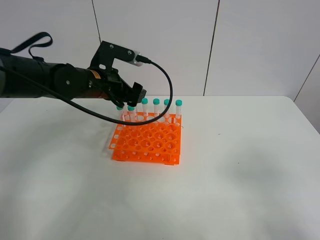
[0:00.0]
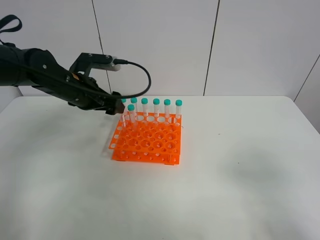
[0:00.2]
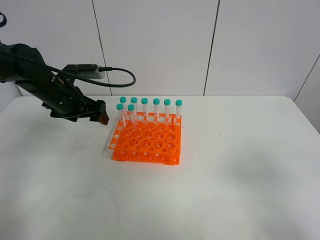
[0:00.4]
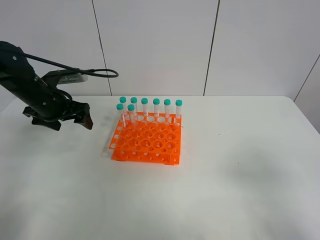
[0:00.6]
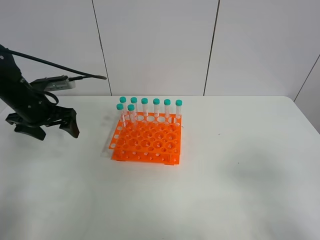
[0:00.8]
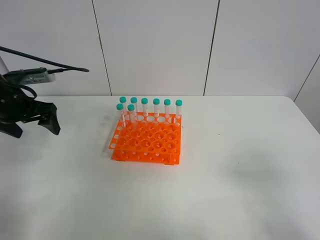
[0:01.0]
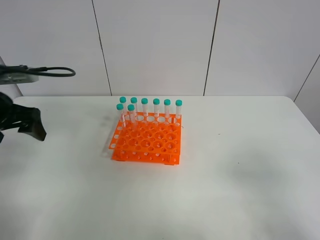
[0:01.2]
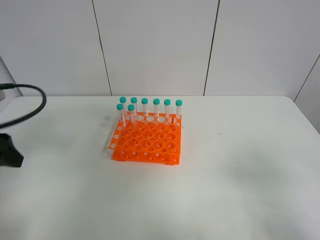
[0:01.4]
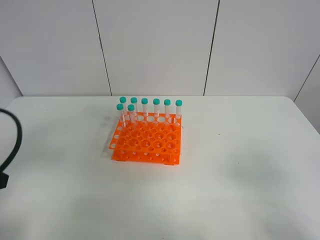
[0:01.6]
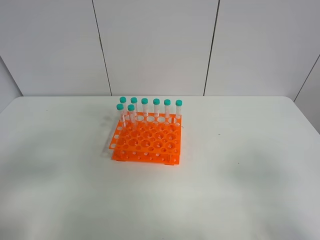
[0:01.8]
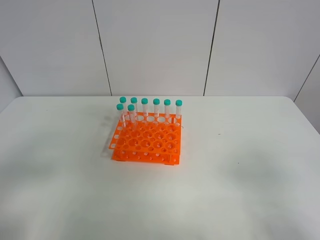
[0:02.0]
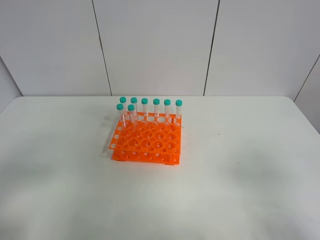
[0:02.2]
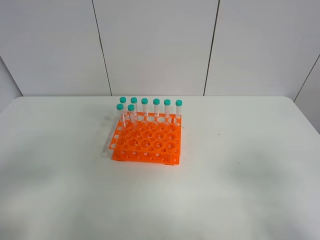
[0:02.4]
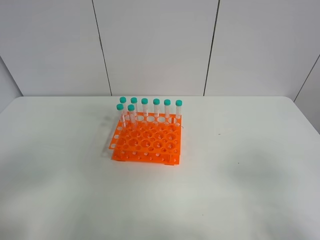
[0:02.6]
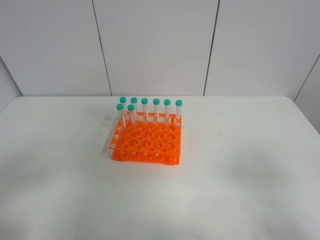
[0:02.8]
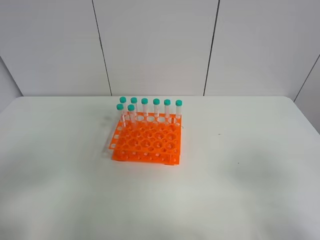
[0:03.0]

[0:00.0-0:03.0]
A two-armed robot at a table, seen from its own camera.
Task of the whole recording: Put the test tube on the table back onto the test tube rack.
0:00.0 to 0:01.6: The left gripper moves backward and to the left, about 30 cm.
0:01.6 to 0:03.0: The left gripper goes about 10 cm backward.

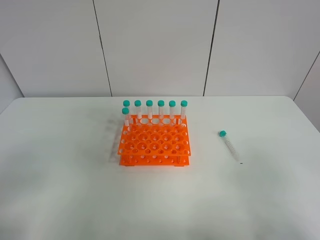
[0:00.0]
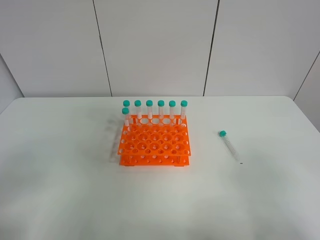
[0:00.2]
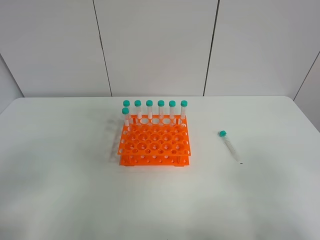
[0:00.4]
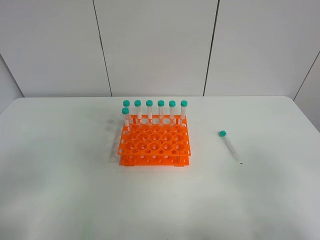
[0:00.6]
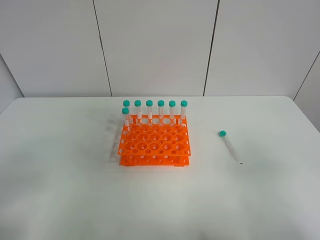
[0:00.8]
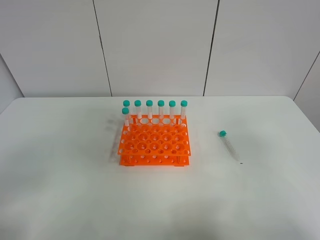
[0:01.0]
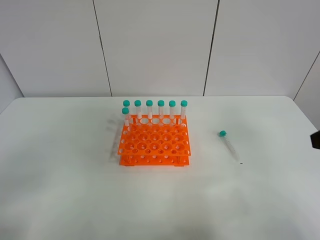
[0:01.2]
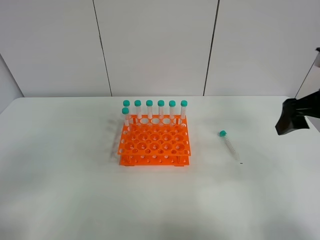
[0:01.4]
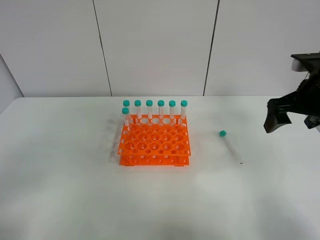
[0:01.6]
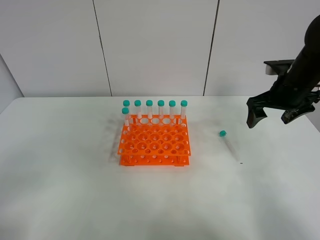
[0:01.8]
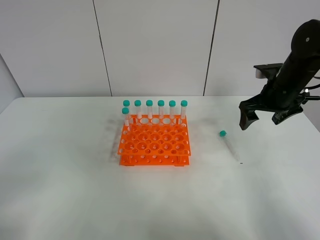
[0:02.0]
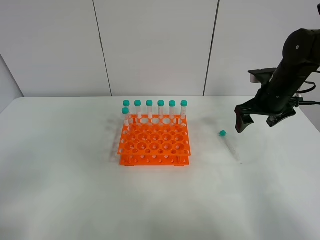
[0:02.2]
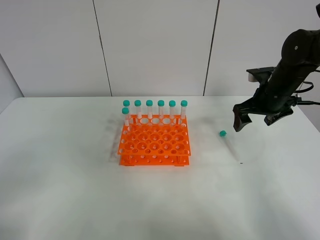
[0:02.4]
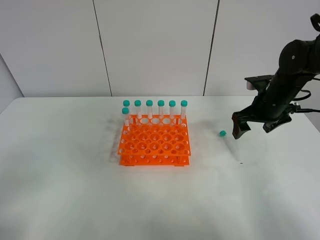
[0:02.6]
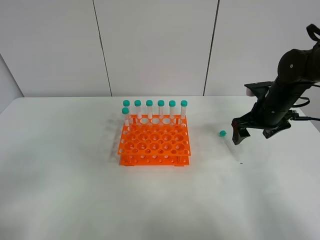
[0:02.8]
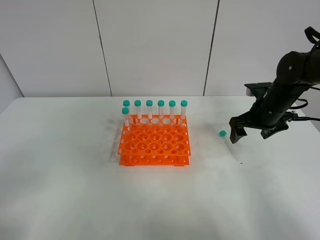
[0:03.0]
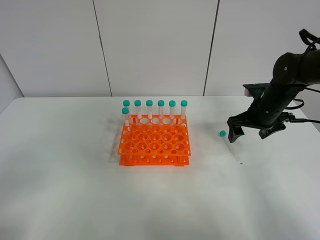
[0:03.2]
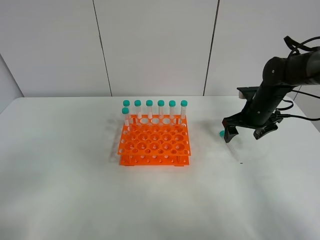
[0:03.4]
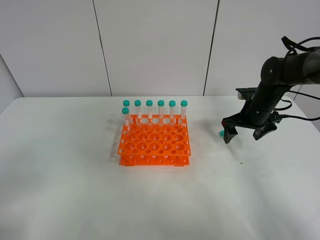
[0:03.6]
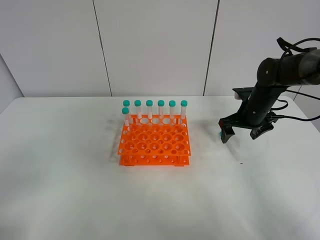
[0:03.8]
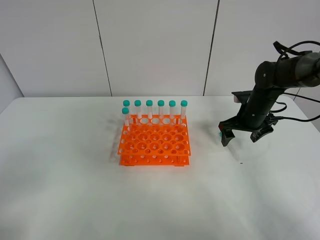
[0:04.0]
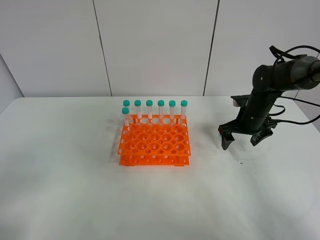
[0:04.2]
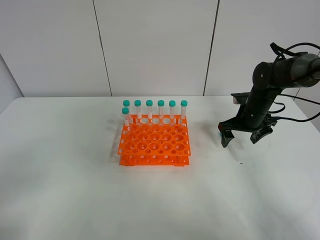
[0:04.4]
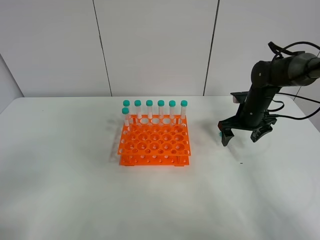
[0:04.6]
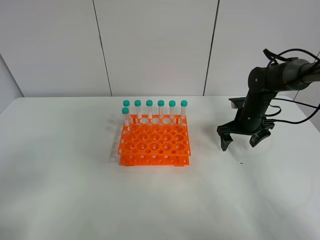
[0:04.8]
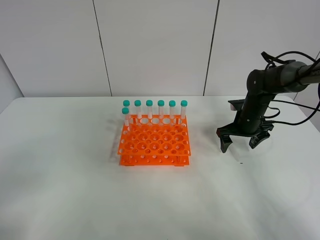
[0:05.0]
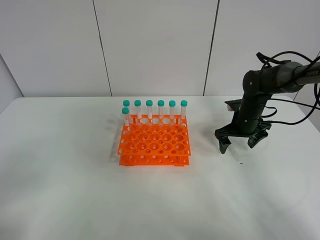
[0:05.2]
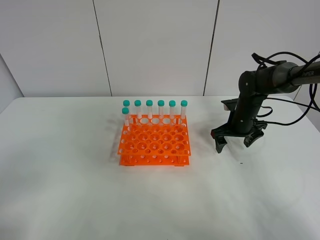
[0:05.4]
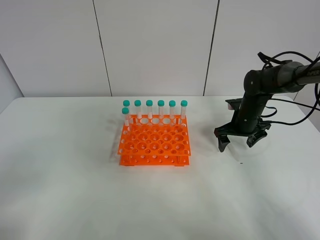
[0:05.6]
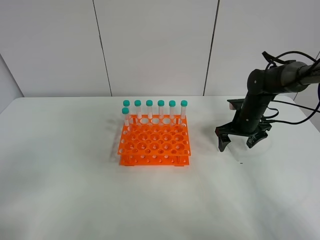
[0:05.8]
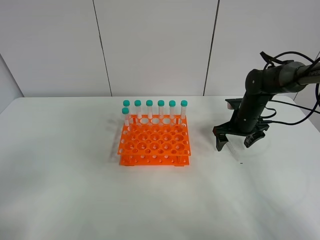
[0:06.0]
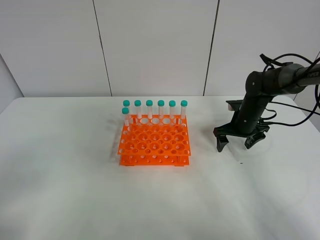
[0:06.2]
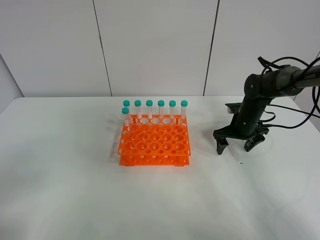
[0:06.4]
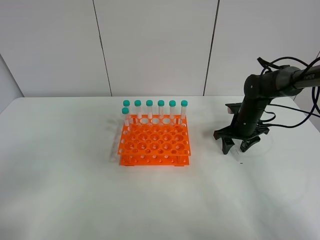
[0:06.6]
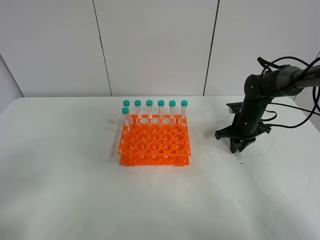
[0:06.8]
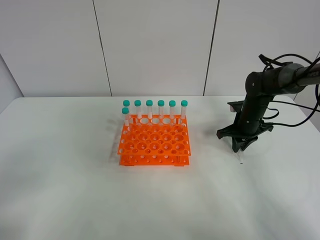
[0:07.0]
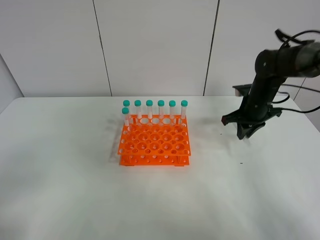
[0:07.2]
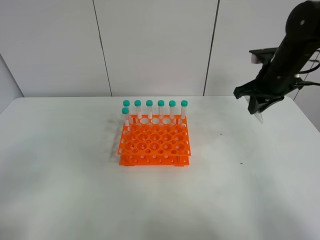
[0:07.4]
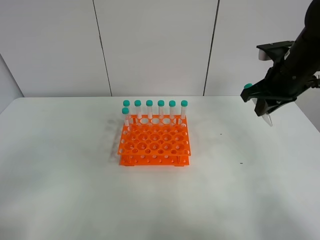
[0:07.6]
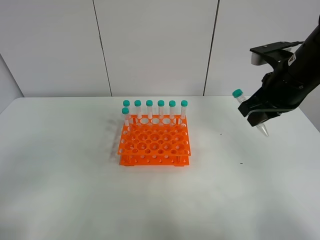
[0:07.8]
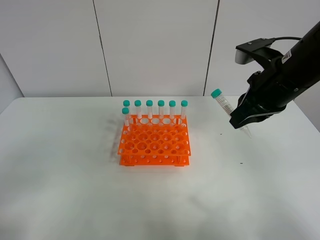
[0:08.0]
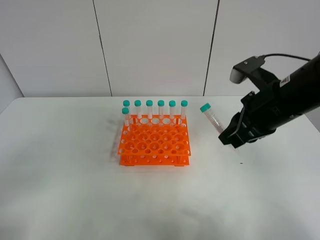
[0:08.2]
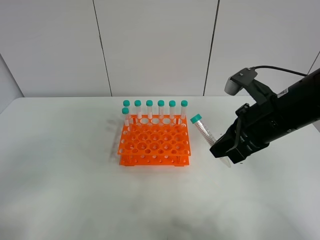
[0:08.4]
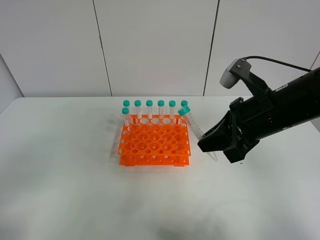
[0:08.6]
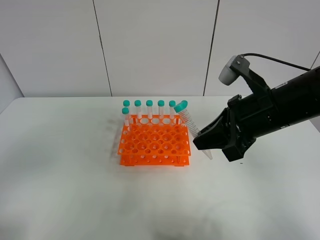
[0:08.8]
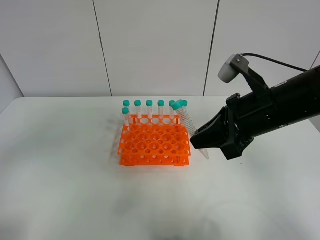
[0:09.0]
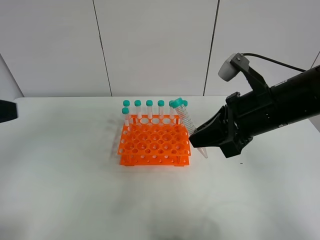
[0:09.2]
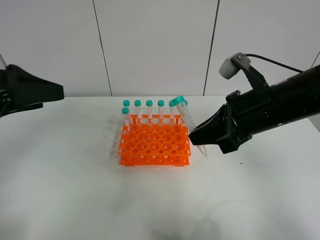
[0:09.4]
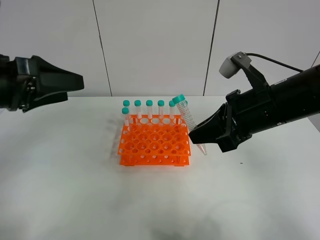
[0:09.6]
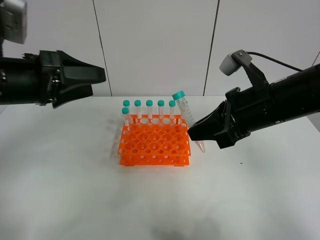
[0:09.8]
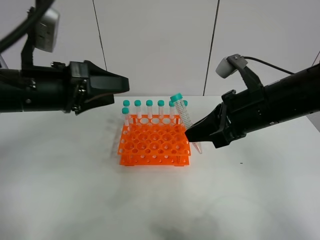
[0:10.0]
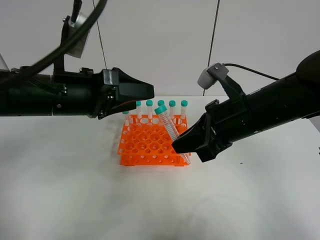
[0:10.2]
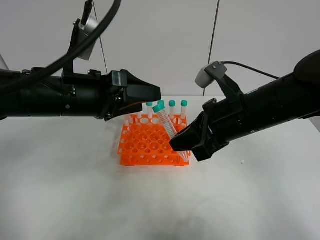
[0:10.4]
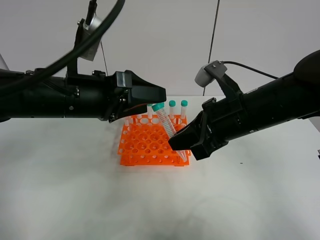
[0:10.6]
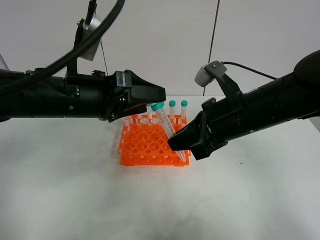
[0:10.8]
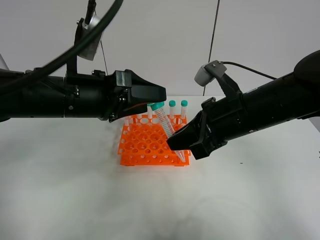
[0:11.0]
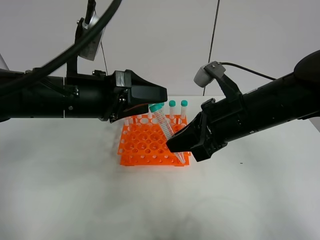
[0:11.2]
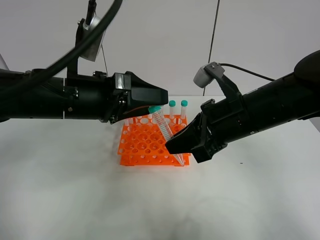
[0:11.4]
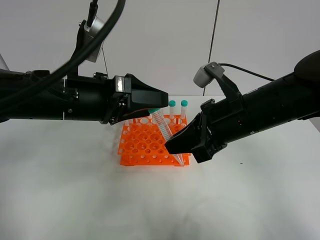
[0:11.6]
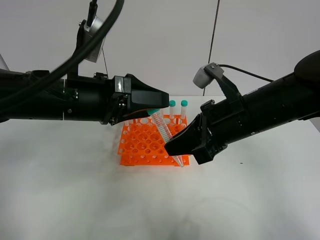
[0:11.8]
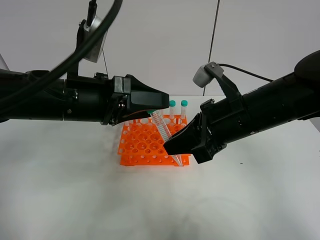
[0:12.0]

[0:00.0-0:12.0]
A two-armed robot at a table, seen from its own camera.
Task of the whole recording: Put the test tube on the table back onto the test tube rack.
Step, 0:00.0 to 0:07.0: Pick up the test tube with the right gripper.
0:00.0 to 0:01.6: The right gripper moves forward, some 30 cm.
0:01.6 to 0:03.0: The right gripper heads downward and forward, covering about 10 cm.
0:03.0 to 0:04.4: The right gripper changes place by roughly 5 cm.
0:04.4 to 0:06.0: The grippers move only a little.
0:06.0 to 0:07.6: The right gripper moves upward and backward, approximately 20 cm, and closes its fingers.
0:07.6 to 0:09.0: The left gripper is displaced upward and forward by roughly 10 cm; the right gripper travels backward and to the left by some 10 cm.
0:09.0 to 0:10.4: The left gripper heads forward, to the right and downward, covering about 25 cm.
0:10.4 to 0:12.0: The grippers stay close to where they were, moving slightly.

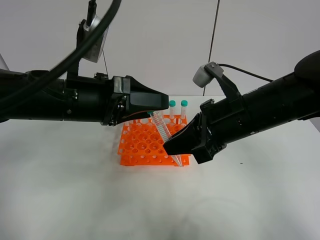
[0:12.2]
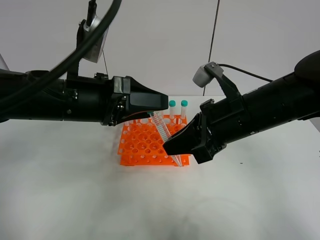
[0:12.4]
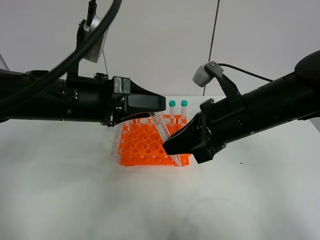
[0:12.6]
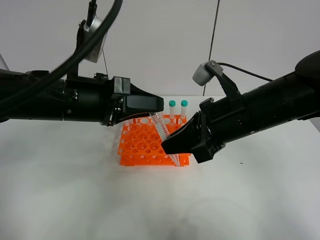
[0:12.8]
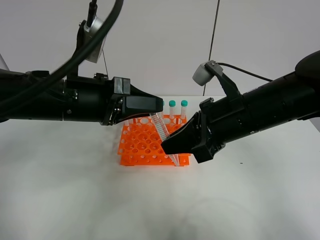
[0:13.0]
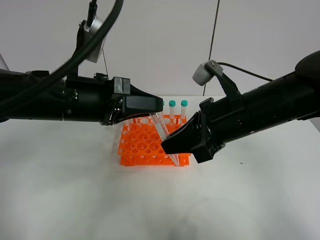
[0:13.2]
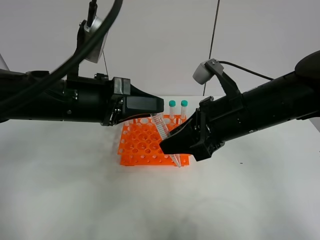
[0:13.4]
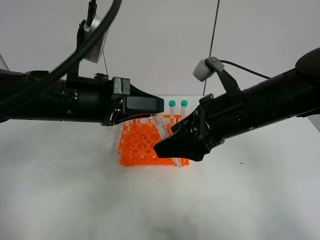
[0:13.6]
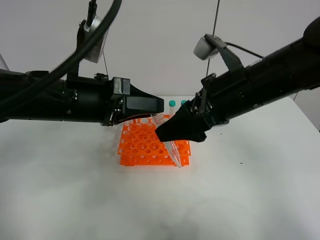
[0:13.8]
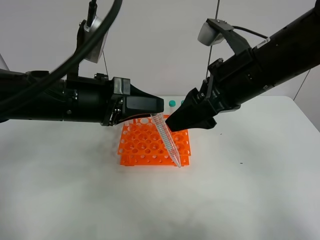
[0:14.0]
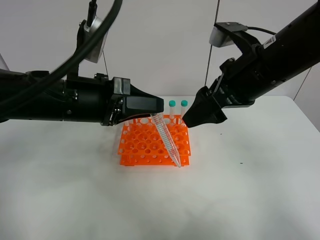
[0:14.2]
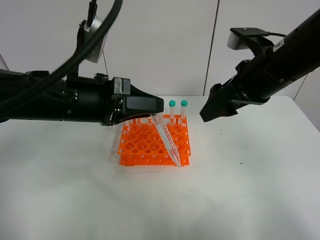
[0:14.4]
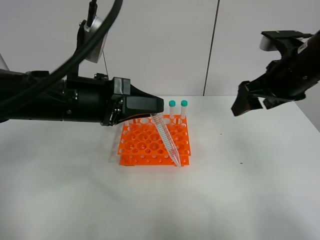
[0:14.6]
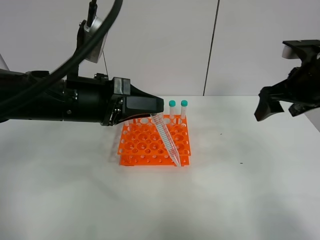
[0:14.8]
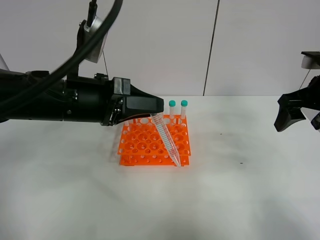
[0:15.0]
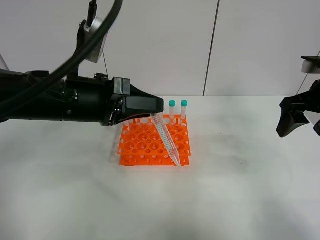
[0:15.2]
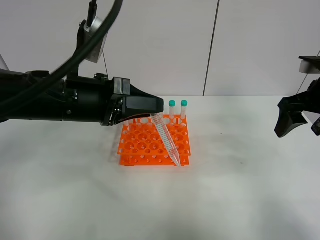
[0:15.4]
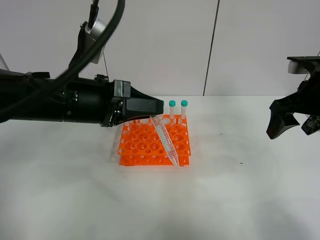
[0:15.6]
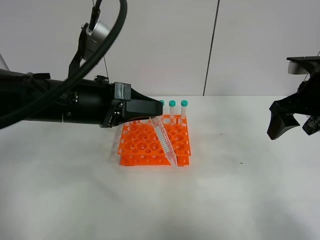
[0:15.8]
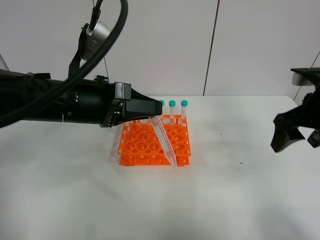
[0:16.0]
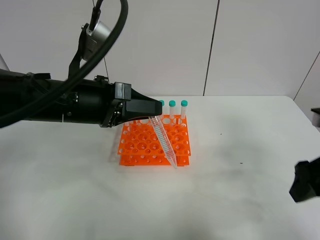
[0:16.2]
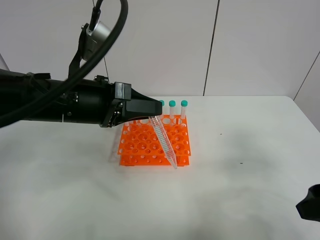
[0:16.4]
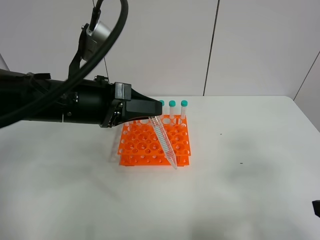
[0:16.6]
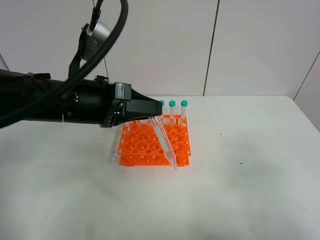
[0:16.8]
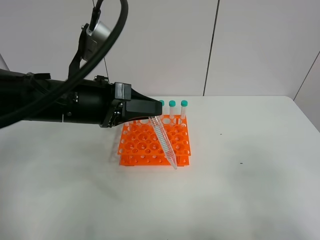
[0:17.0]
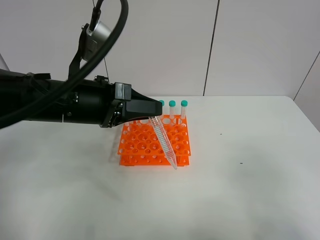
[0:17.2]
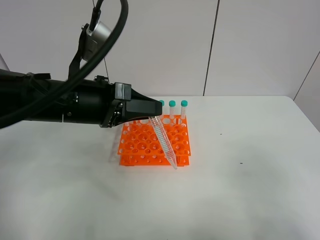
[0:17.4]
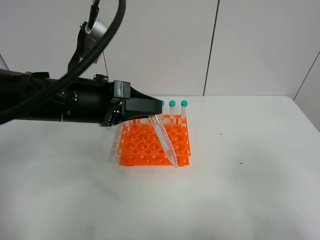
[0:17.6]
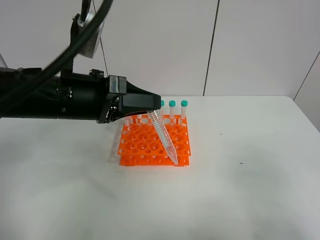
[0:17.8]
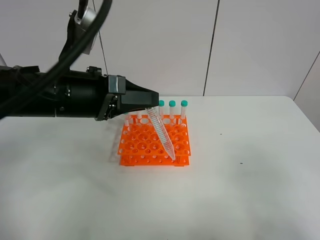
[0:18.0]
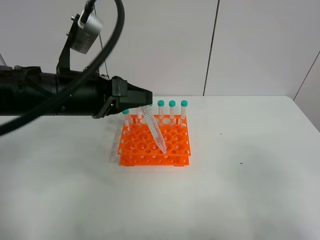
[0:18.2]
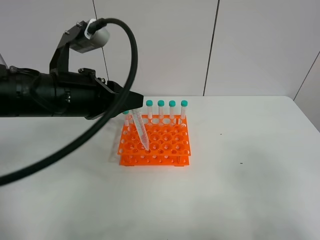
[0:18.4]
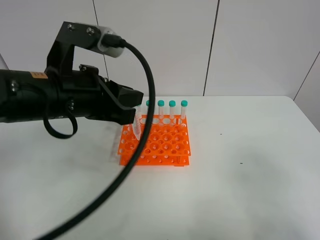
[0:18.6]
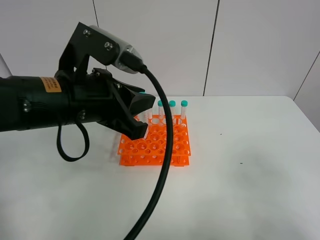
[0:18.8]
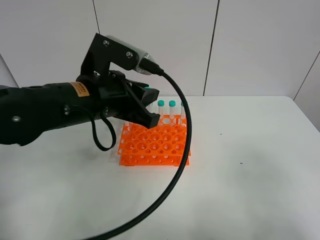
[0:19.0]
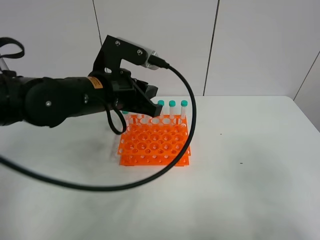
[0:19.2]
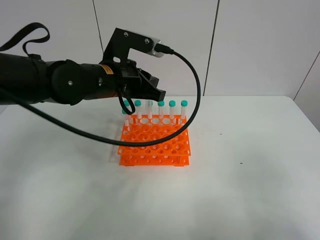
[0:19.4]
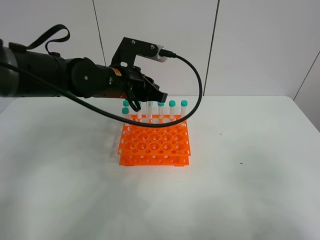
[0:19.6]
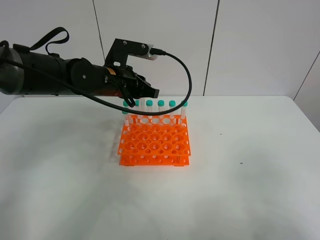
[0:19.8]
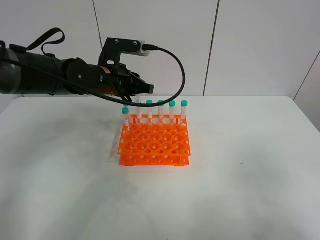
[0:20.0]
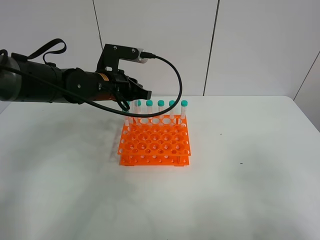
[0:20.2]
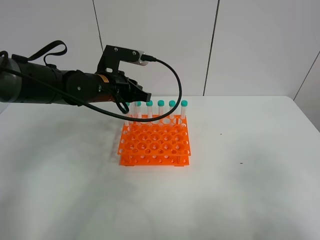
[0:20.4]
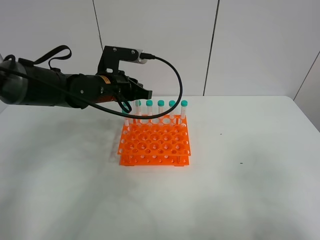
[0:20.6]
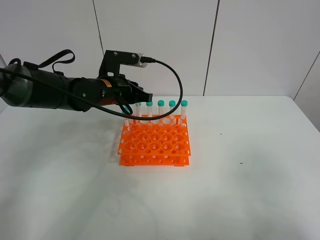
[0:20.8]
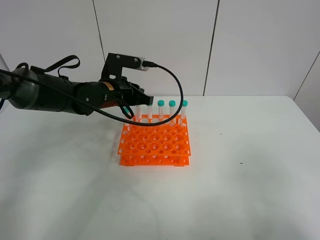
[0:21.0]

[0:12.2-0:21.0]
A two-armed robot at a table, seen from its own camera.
Task of the whole recording: Put the test tube on the table back onto the test tube rack.
0:12.2 to 0:13.6: The right gripper opens up. Meanwhile the left gripper closes its fingers.
0:13.6 to 0:15.2: The right gripper moves to the right, about 15 cm.
0:15.2 to 0:16.6: The right gripper is displaced backward by about 25 cm.
0:16.6 to 0:18.0: The grippers move only a little.
0:18.0 to 0:19.6: The left gripper is displaced forward and to the right by about 15 cm.
0:19.6 to 0:21.0: The left gripper changes place by roughly 5 cm.
